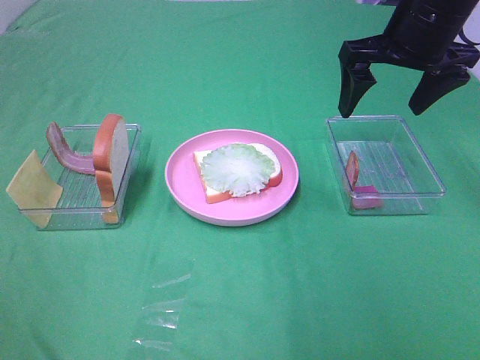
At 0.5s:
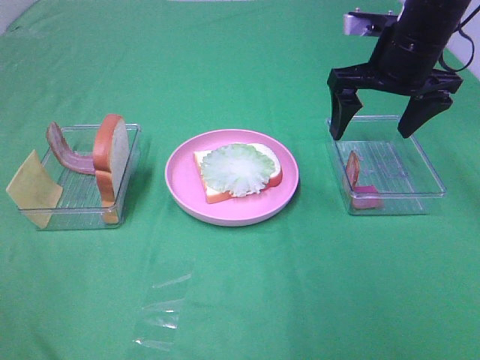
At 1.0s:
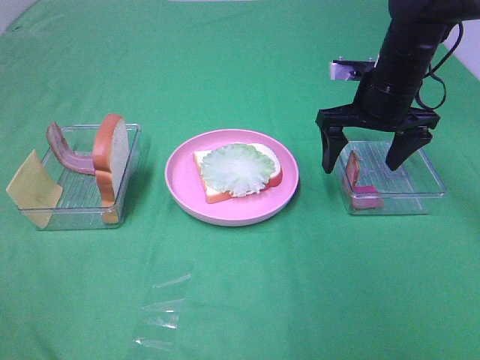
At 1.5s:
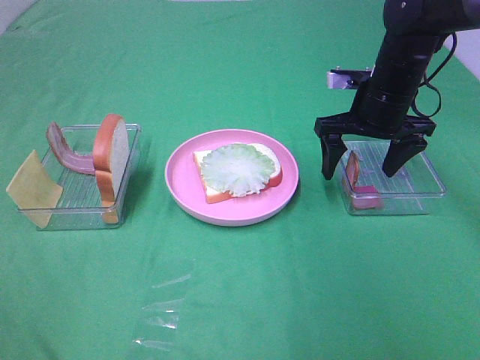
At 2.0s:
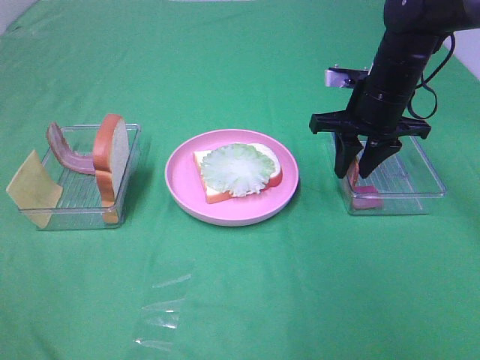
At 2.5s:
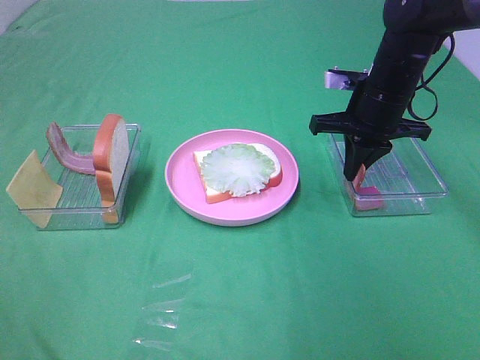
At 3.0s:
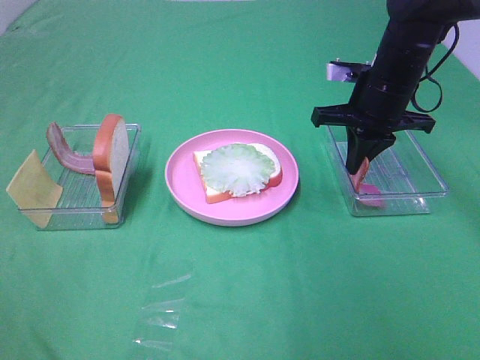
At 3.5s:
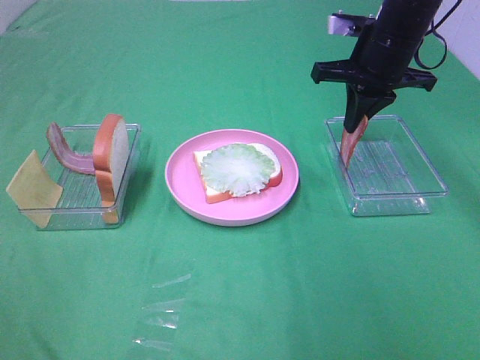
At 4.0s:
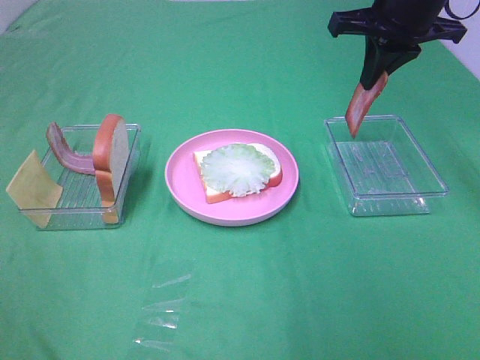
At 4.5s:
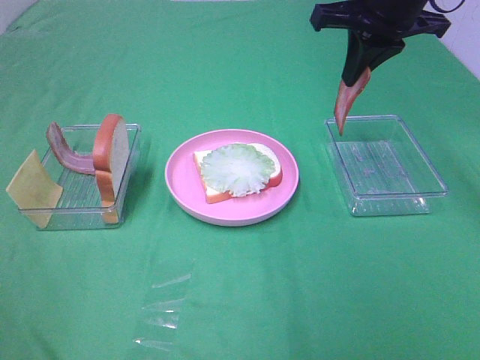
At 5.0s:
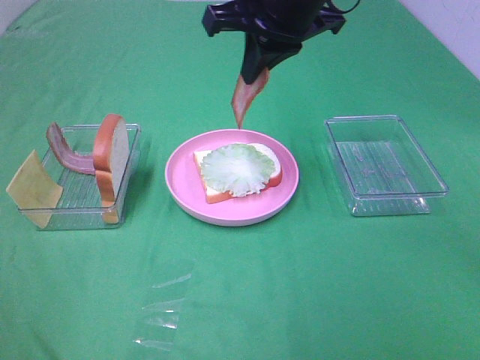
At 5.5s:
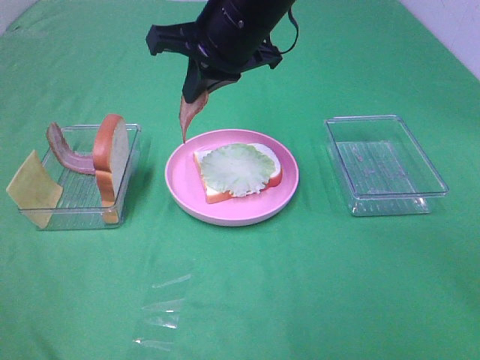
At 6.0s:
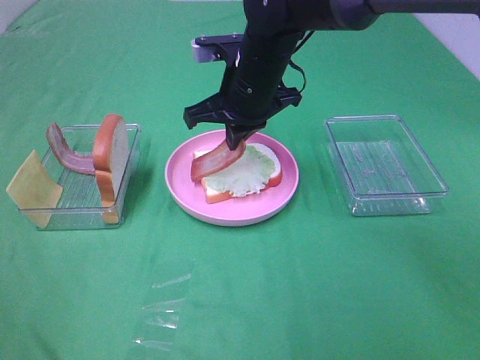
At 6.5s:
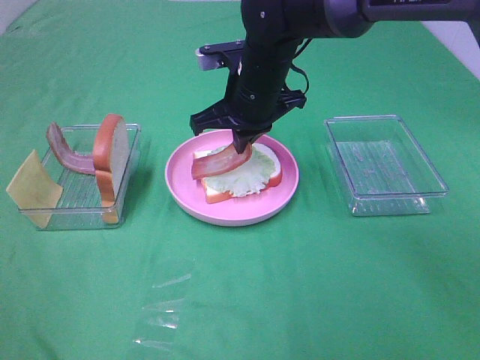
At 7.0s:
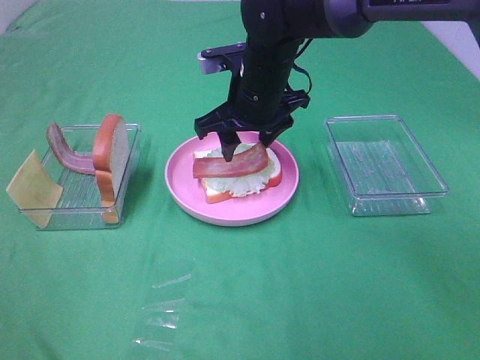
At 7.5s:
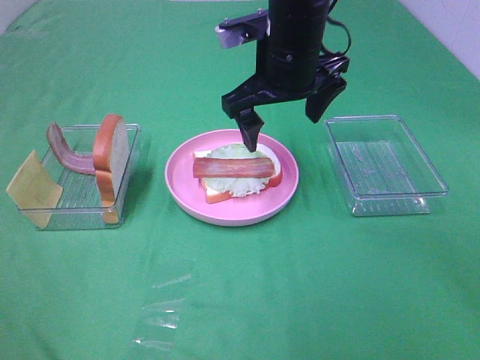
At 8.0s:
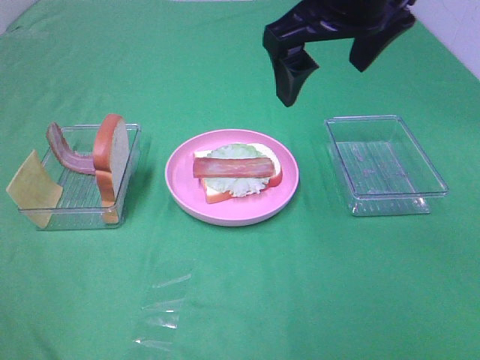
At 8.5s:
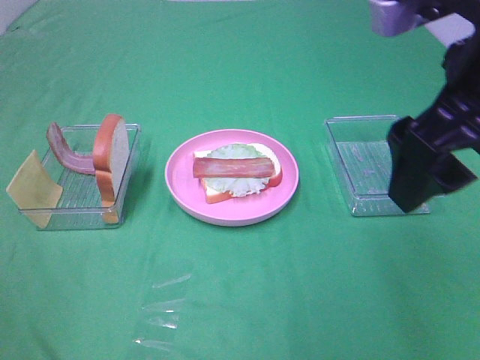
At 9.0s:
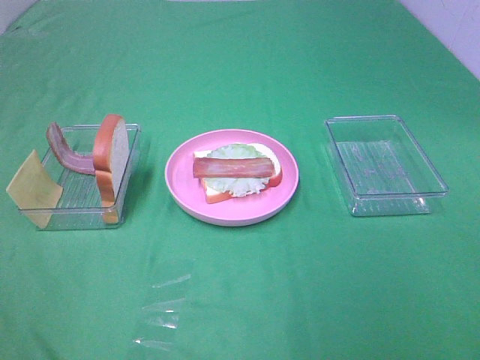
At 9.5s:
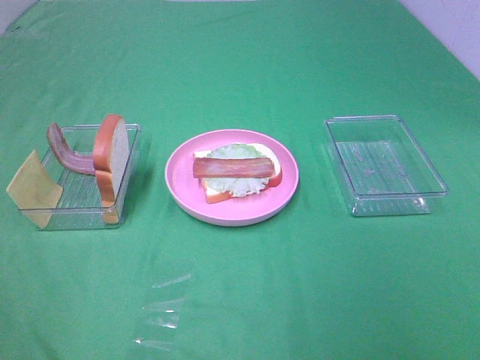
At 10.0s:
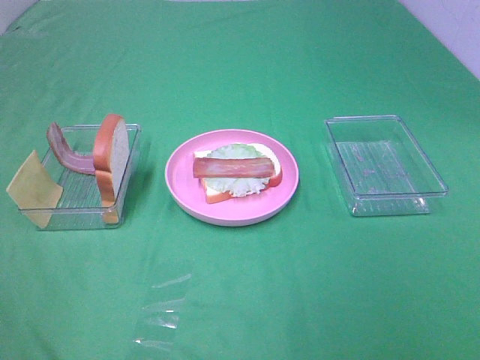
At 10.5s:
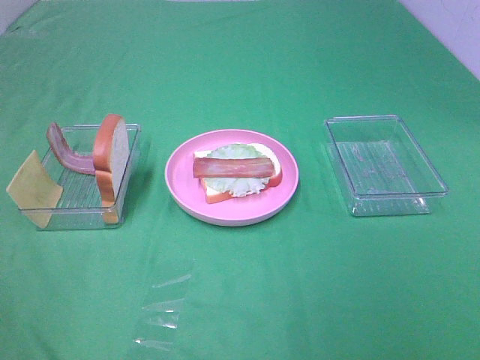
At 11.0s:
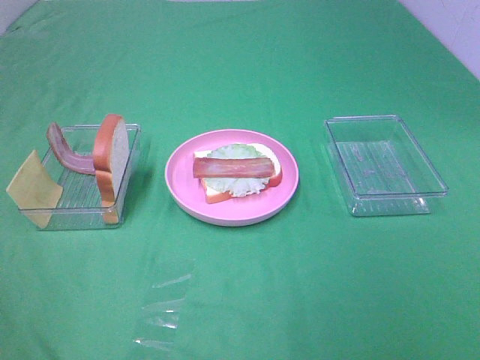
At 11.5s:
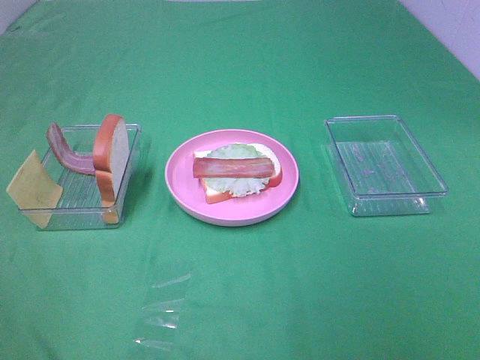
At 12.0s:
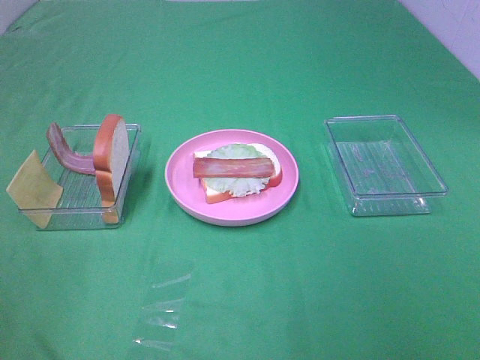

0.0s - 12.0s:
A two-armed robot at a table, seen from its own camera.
Task of the whole recording: Make sandwiches.
Step, 0.0s - 2.0s: Right hand:grab the bacon.
Step, 2.5s - 7.0s: Right hand:place bacon on lettuce slice.
0.0s - 2.0s: The right gripper shifts roughly 10 cm downward, and closes its fingers.
2.0s - 4.0s: The right gripper shifts roughly 15 cm upward, and closes up.
4.0s - 6.0s: The right gripper heads to the left and downward, covering some 20 cm.
6.0s - 8.0s: The right gripper shifts roughly 20 cm upward, backward and to the right, and opens.
8.0s - 10.0s: The right gripper heads backward and to the right, covering approximately 35 cm.

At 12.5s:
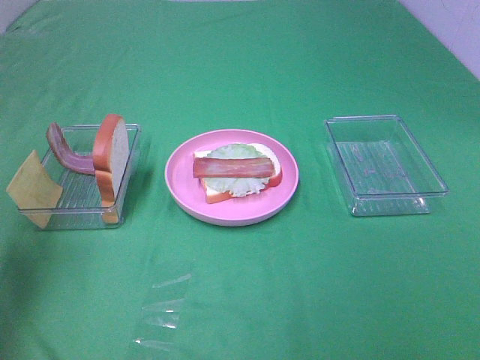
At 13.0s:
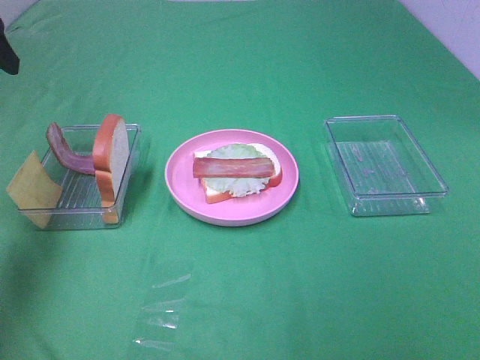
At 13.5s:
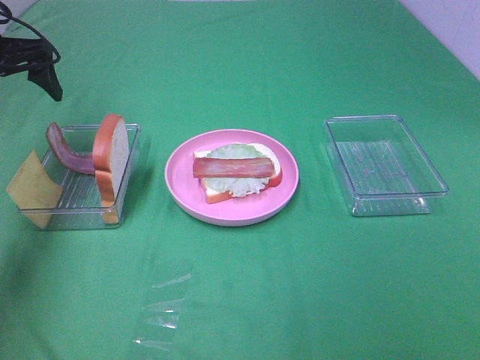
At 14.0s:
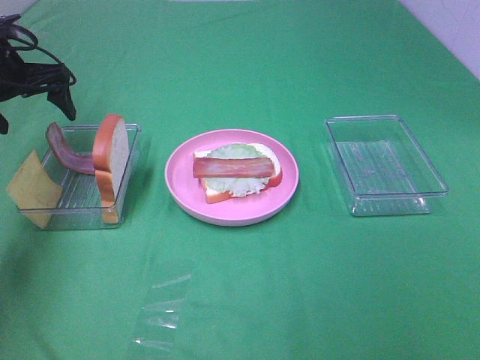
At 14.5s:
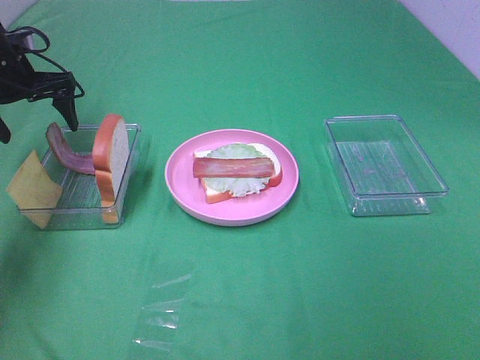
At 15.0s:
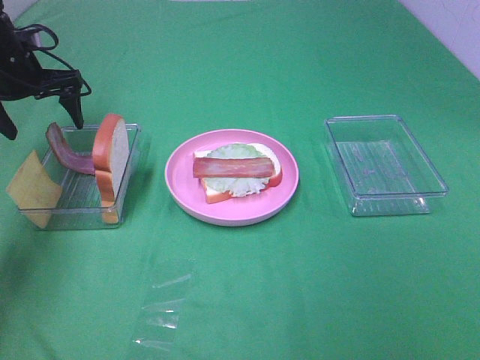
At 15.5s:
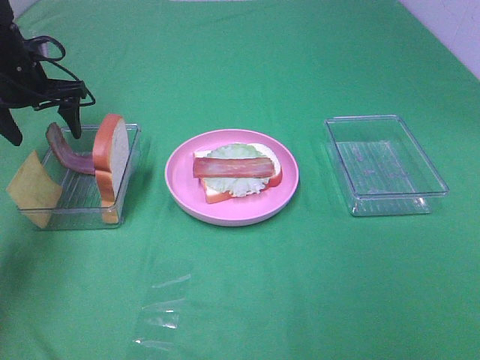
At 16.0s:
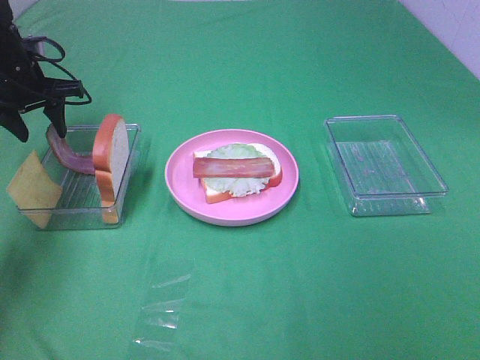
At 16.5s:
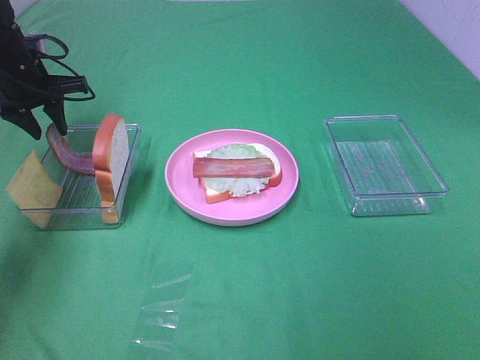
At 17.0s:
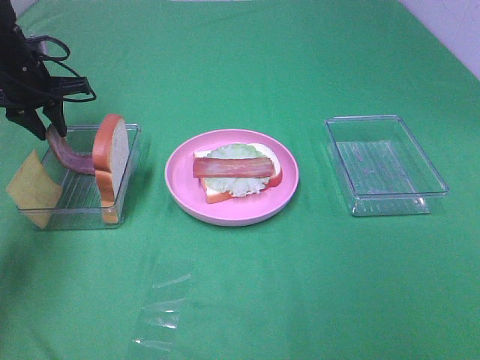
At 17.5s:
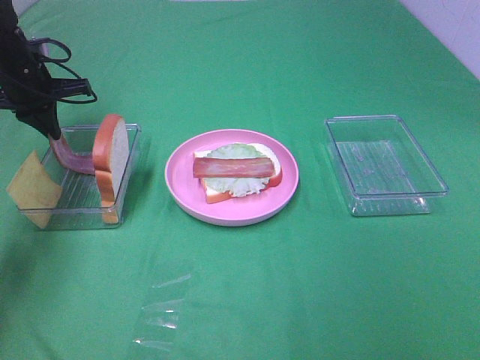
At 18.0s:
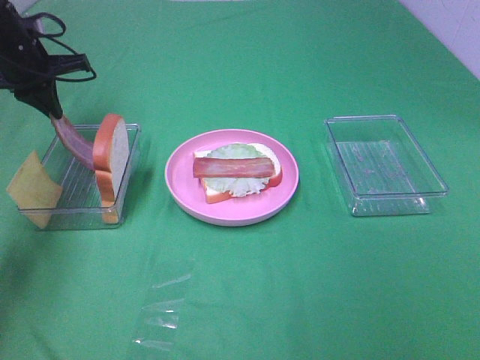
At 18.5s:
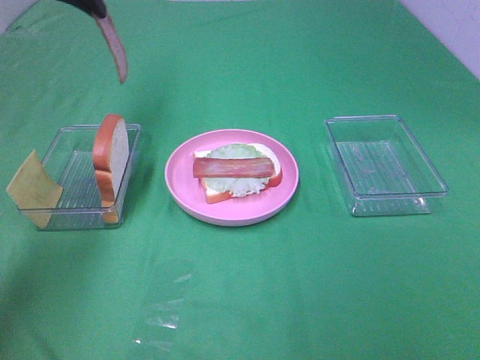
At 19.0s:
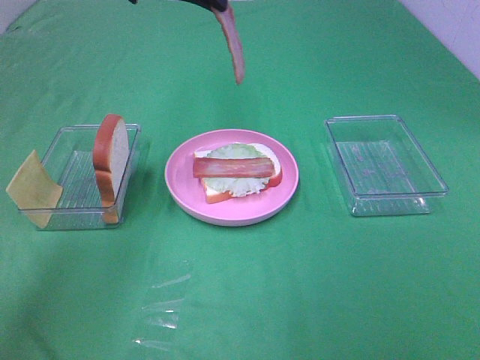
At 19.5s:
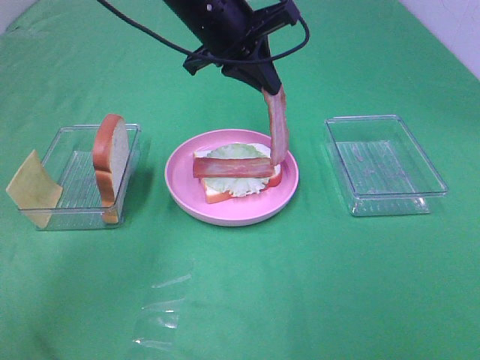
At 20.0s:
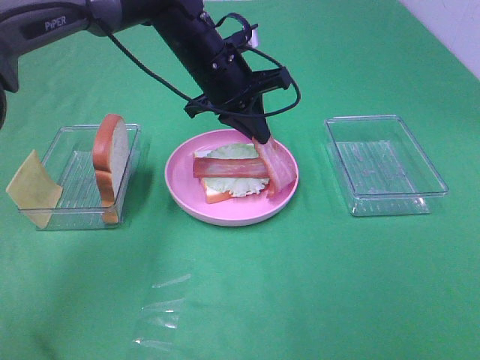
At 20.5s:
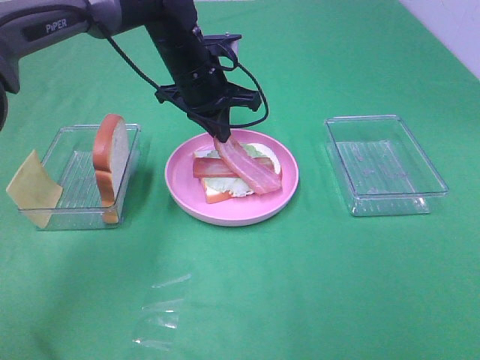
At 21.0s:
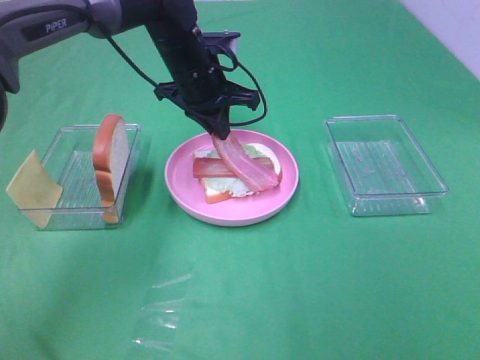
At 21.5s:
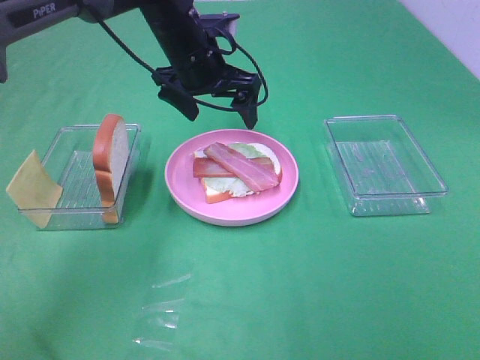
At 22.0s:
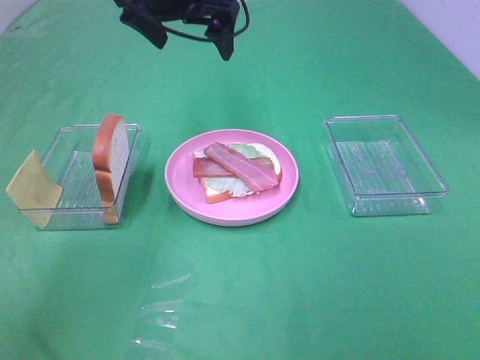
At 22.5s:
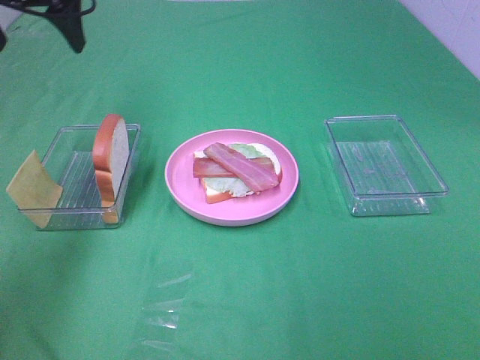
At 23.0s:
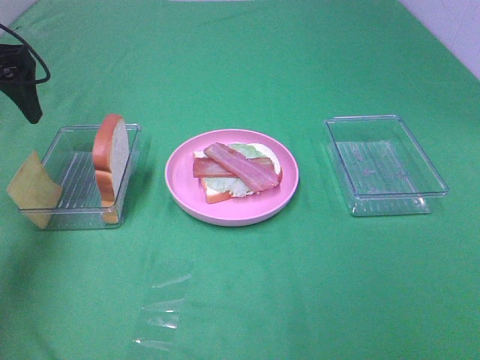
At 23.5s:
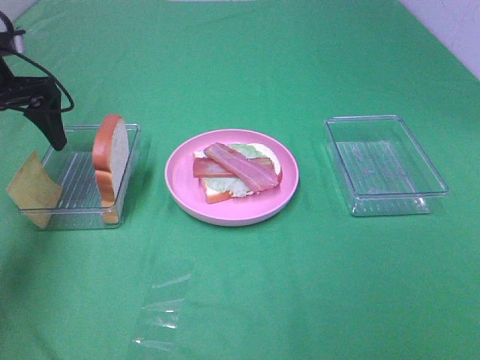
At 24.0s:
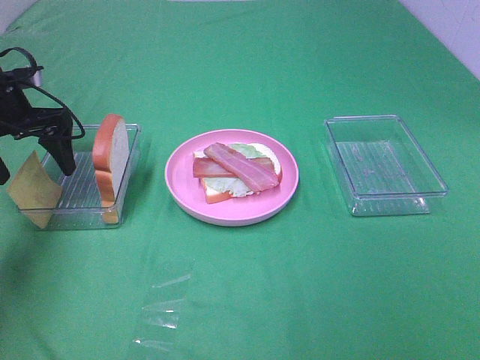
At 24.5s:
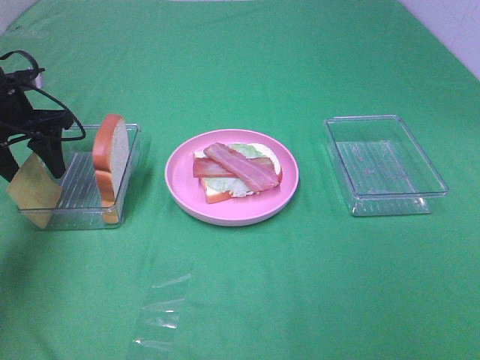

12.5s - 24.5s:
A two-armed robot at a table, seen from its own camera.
Task of the whole recording: Make sandwiches.
Step, 12.5s - 17.0s: Left hand:grab the bacon.
Step, 17.5s - 21.0s: Left hand:place bacon on bacon.
12.5s - 14.5s: The left gripper heads forward and downward, covering approximately 30 cm.
14.5s - 16.5s: The left gripper closes up.
16.5s - 18.5s: The left gripper moves upward and to the right, approximately 20 cm, and closes its fingers.
18.5s - 20.5s: The left gripper heads downward and to the right, covering some 20 cm.
20.5s - 22.5s: The left gripper heads to the left and upward, covering about 25 cm, and opens up.
22.5s - 24.5s: The left gripper travels downward by roughly 15 cm, and closes its fingers.

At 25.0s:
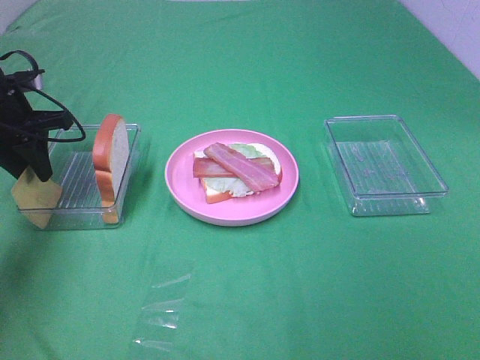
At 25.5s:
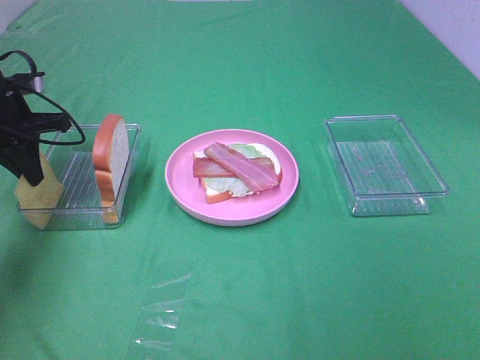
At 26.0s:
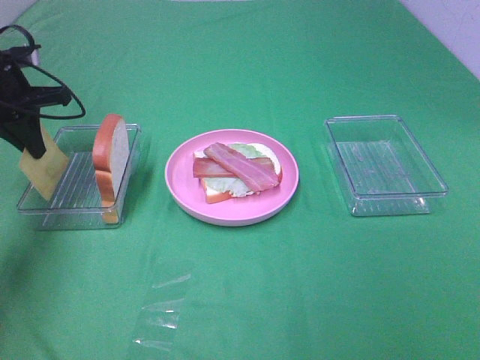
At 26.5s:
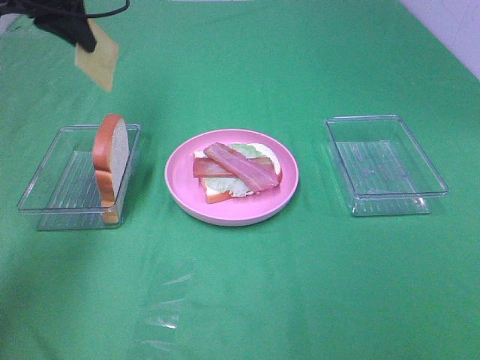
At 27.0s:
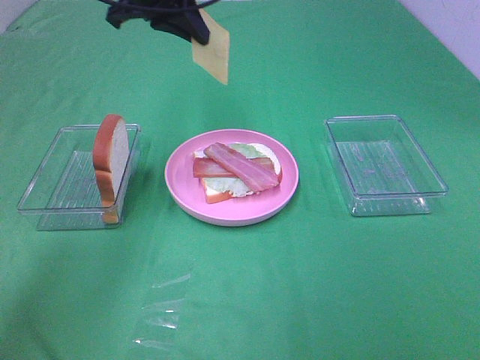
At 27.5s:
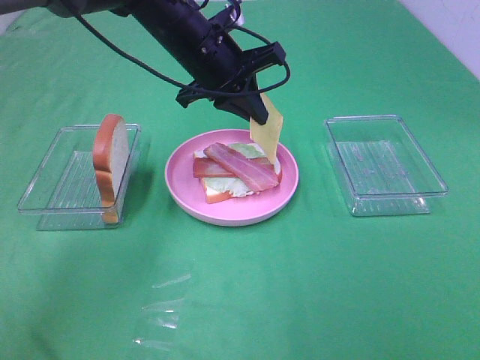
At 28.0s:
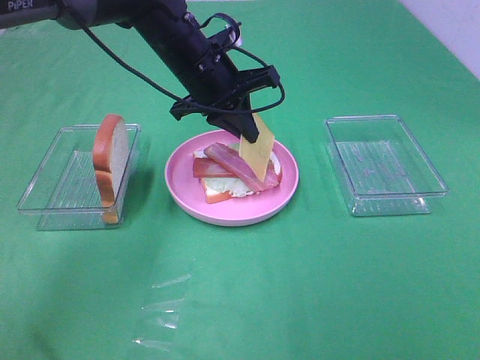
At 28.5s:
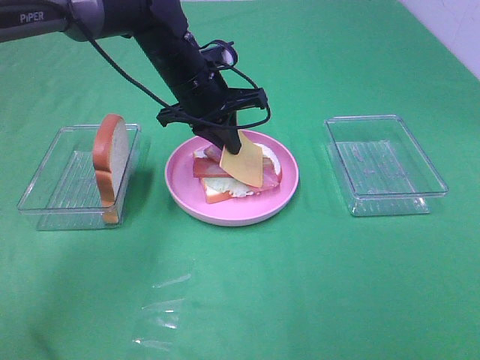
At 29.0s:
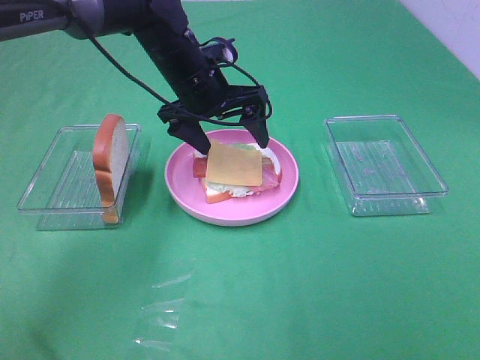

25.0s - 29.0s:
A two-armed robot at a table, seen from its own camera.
Task of the whole recording: Make sandwiches.
25.0s - 27.0s: The left gripper moves to the right and upward, roughly 25 cm.
27.0s - 29.0s: The left gripper heads downward, covering some 10 cm, and opens up.
